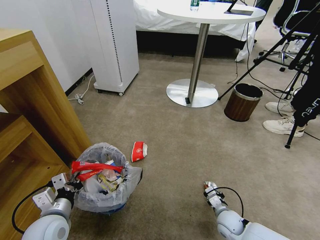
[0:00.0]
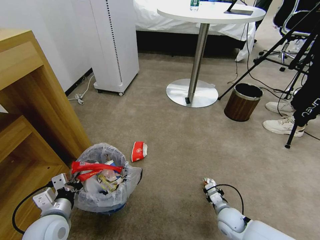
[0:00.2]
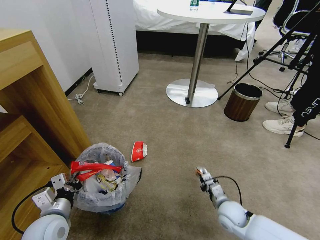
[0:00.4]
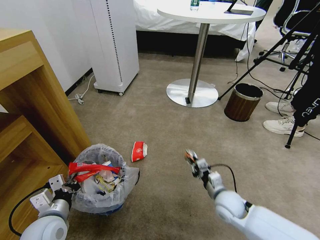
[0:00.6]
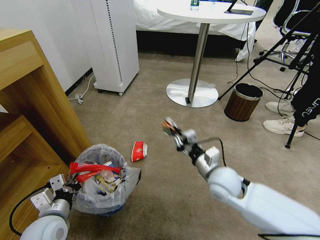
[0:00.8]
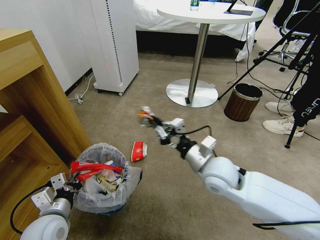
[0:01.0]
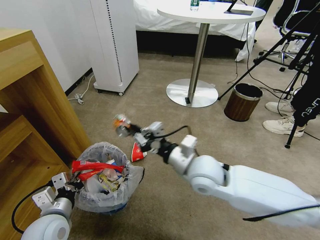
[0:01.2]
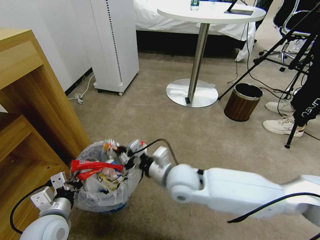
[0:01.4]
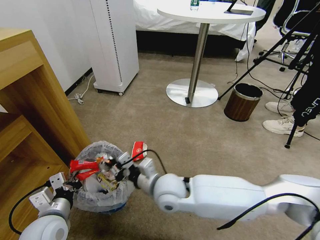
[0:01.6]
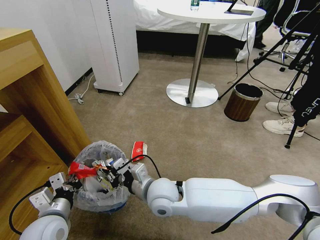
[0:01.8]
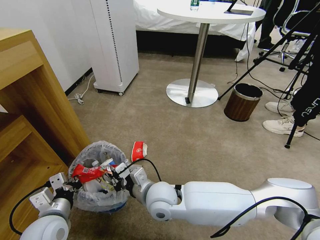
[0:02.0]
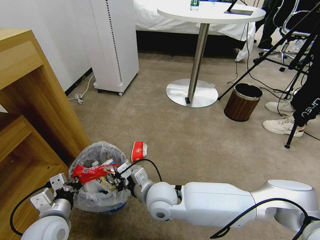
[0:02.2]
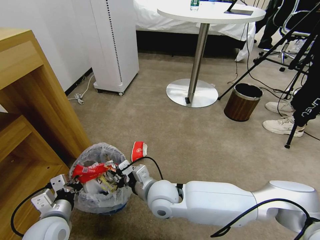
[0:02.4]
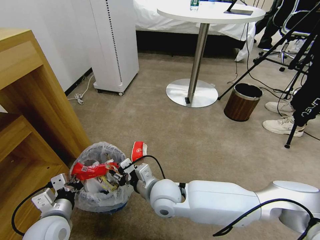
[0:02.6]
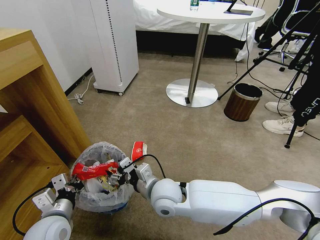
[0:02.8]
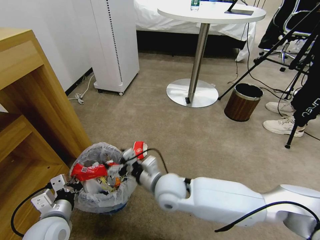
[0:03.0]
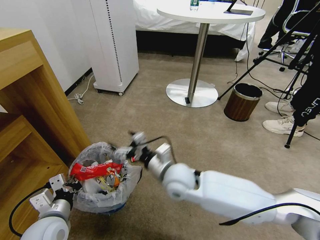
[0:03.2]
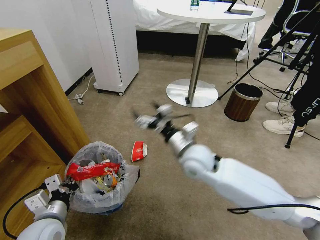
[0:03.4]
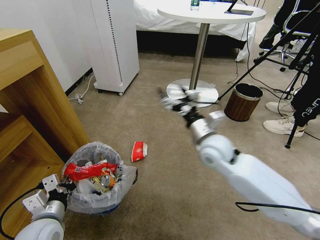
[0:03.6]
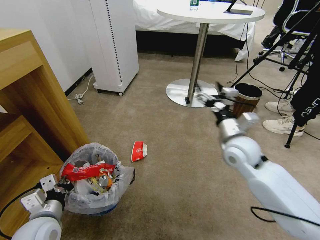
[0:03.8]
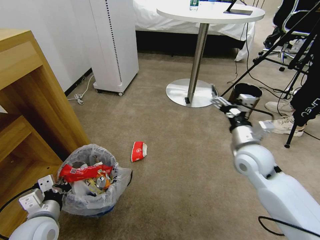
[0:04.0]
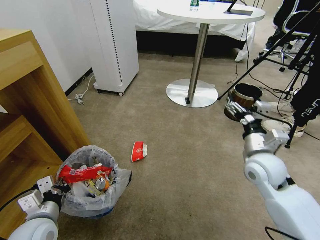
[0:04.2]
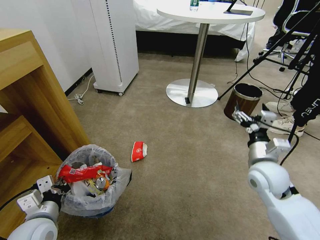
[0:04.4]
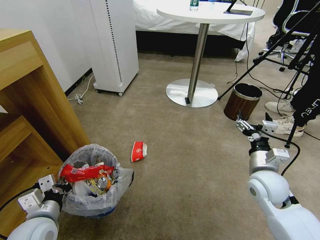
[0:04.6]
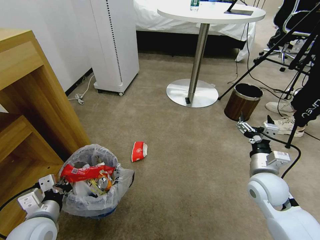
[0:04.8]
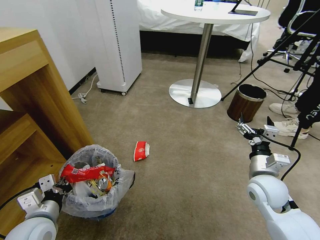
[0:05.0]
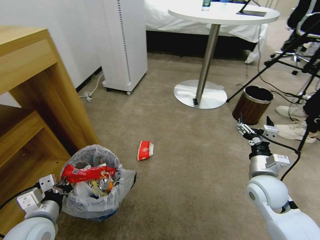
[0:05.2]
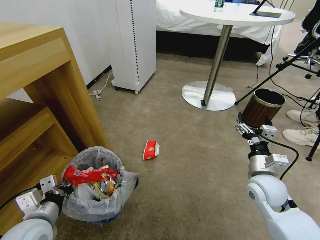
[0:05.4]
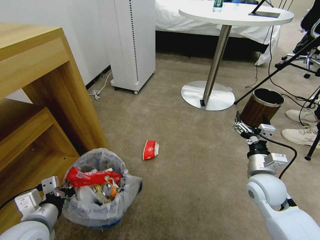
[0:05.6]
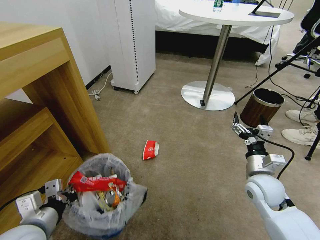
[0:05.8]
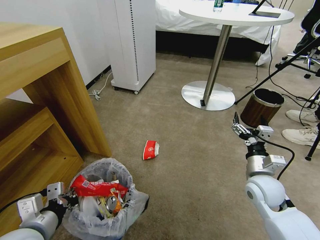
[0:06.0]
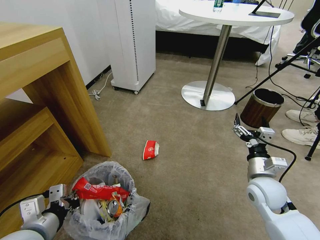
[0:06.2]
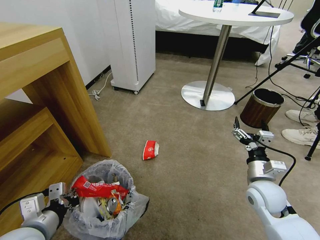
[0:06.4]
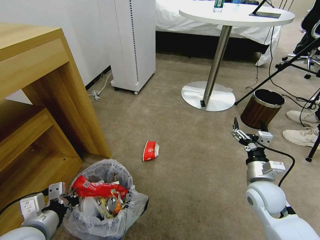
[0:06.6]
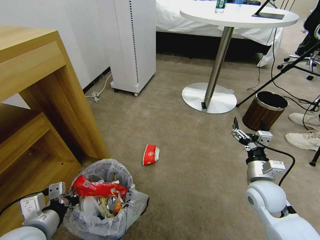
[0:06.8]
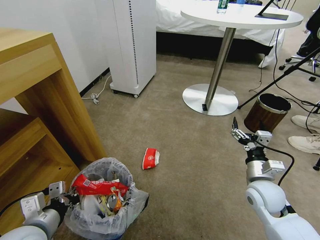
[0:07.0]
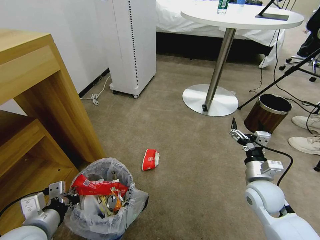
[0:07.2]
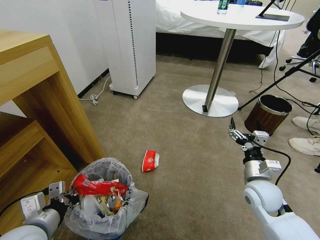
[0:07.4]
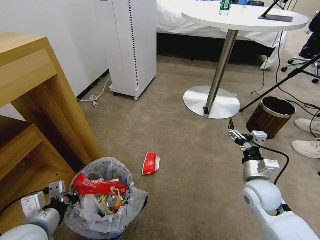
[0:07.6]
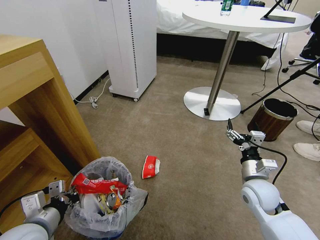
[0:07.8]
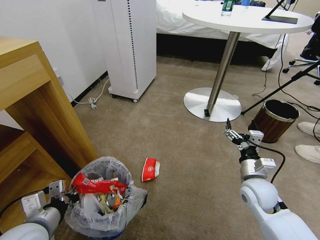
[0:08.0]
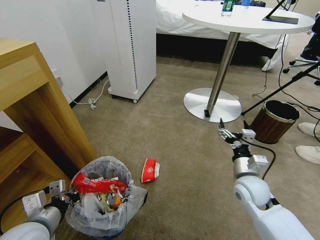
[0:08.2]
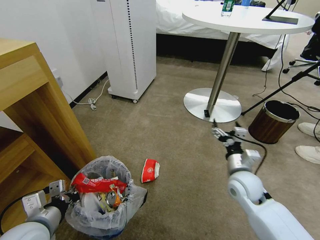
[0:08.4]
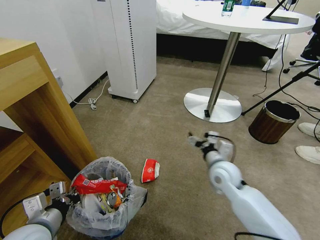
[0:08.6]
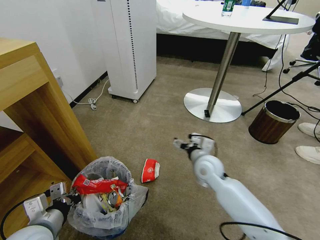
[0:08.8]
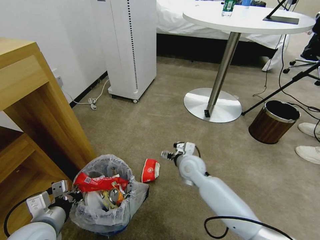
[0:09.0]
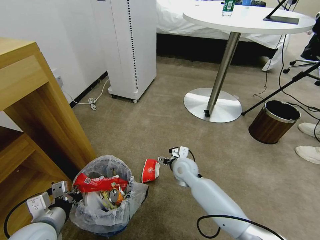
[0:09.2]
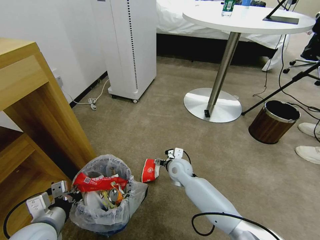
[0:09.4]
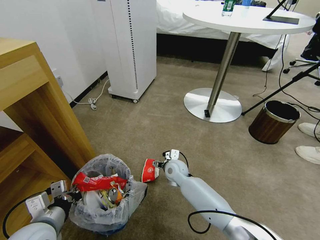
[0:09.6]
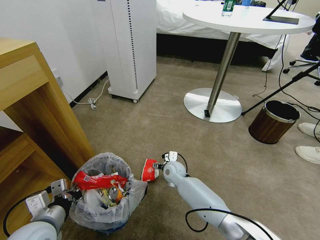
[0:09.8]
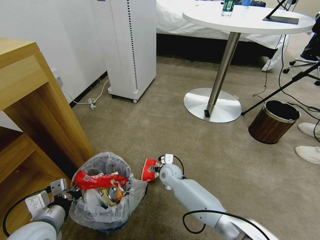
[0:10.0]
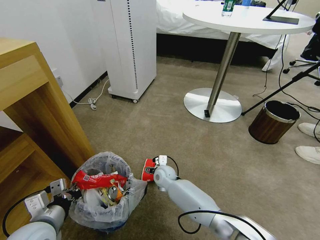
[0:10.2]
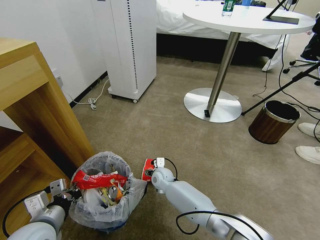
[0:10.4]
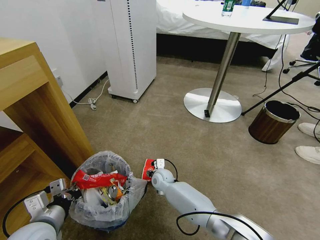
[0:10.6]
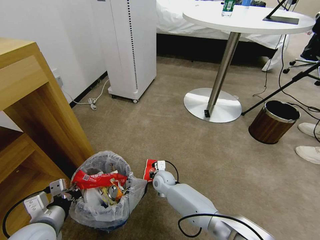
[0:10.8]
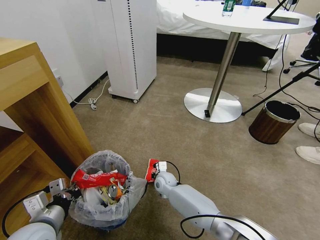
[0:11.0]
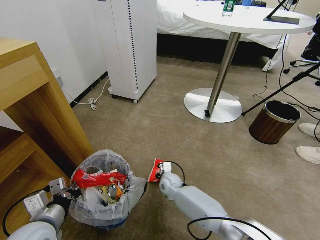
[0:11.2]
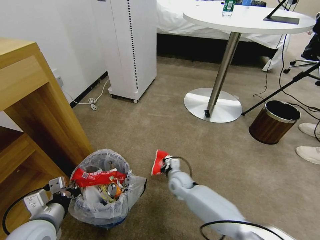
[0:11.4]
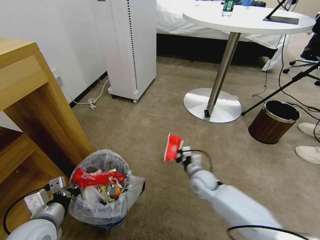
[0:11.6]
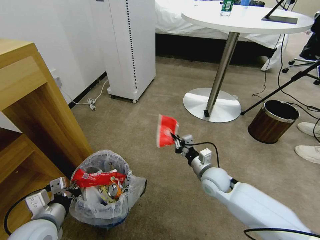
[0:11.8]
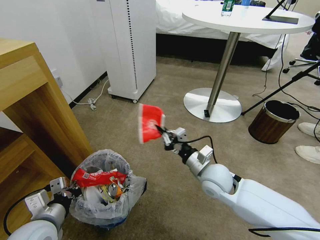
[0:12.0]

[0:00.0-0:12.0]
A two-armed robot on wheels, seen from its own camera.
Task of the whole recording: Pick up the trash bin and place the garbage on the floor into it.
0:00.0 to 0:01.6: The right gripper shifts about 35 cm to the left and upward.
0:01.6 to 0:03.0: The right gripper opens its fingers.
0:03.0 to 0:04.4: The right gripper travels to the right by roughly 30 cm.
0:04.4 to 0:06.0: The left gripper moves upward, some 5 cm. The right gripper shifts by roughly 5 cm.
0:07.6 to 0:09.0: The right gripper is displaced to the left and forward by some 20 cm.
0:09.0 to 0:10.4: The right gripper moves downward and to the left, approximately 20 cm.
0:10.4 to 0:12.0: The right gripper travels upward, to the right and backward by about 25 cm, and closes its fingers.

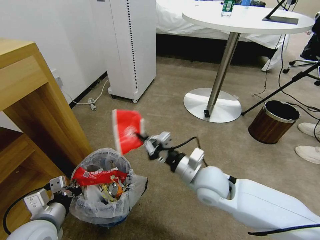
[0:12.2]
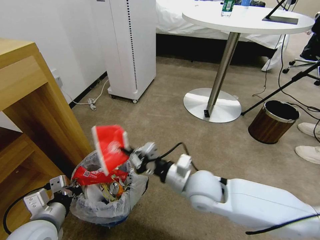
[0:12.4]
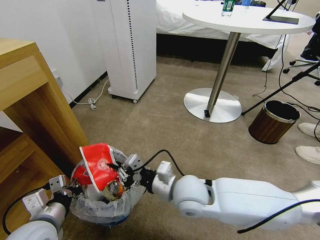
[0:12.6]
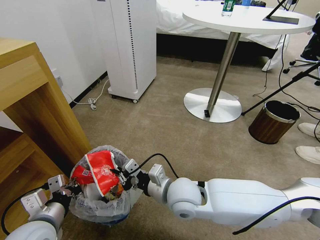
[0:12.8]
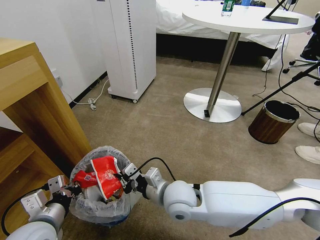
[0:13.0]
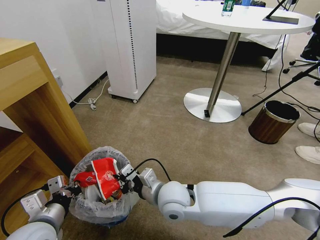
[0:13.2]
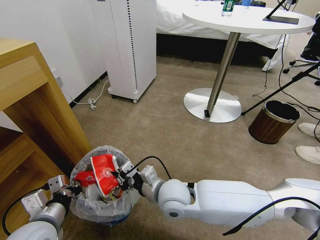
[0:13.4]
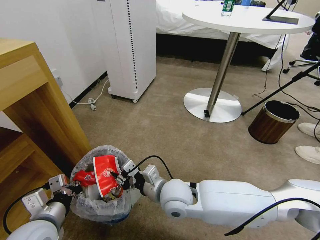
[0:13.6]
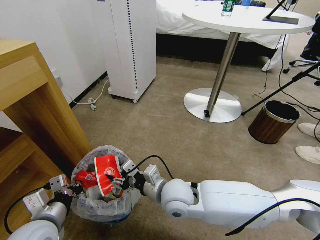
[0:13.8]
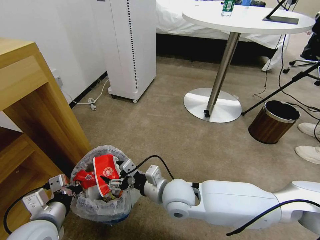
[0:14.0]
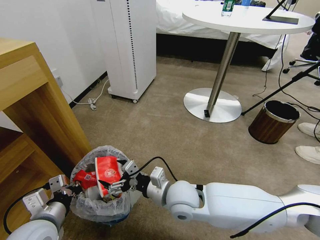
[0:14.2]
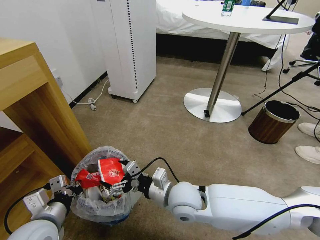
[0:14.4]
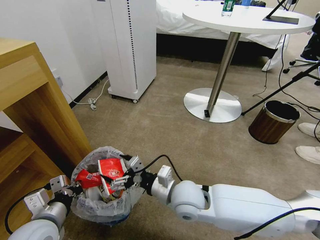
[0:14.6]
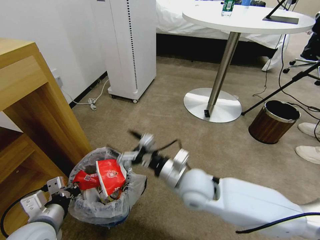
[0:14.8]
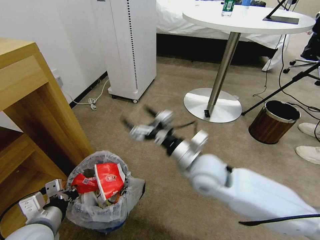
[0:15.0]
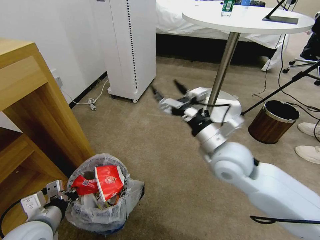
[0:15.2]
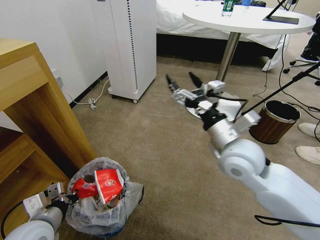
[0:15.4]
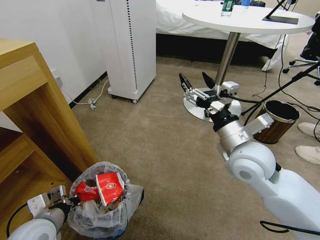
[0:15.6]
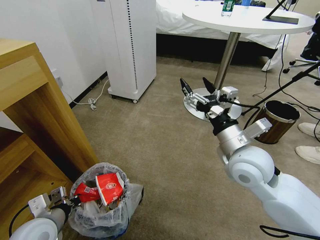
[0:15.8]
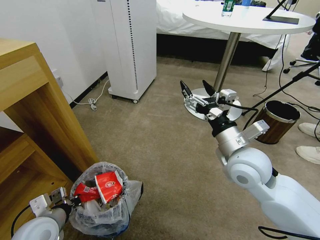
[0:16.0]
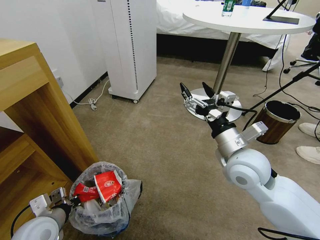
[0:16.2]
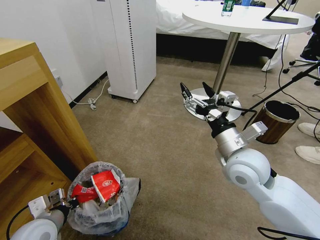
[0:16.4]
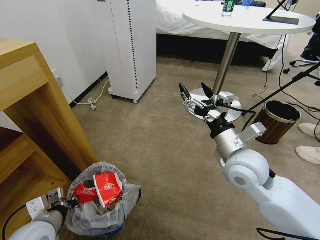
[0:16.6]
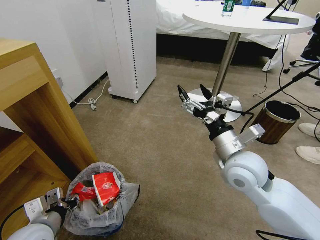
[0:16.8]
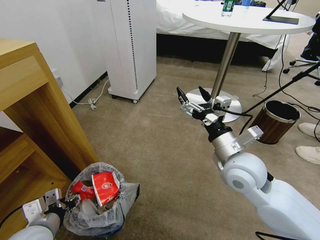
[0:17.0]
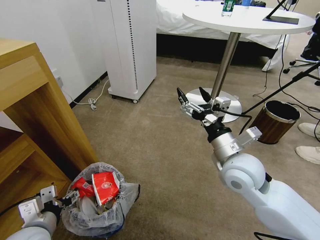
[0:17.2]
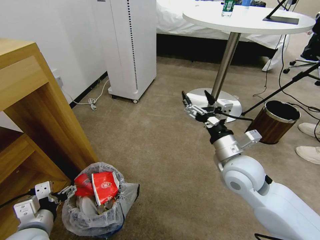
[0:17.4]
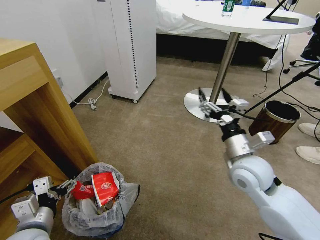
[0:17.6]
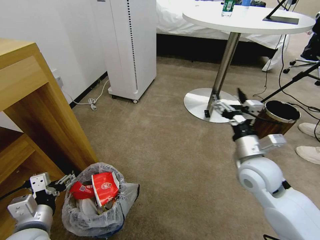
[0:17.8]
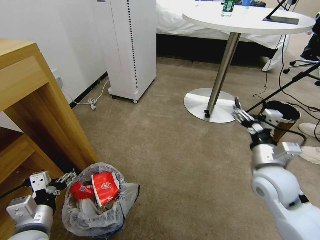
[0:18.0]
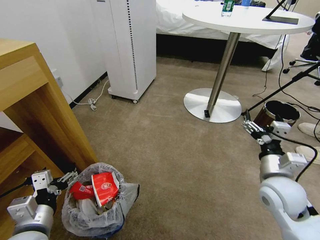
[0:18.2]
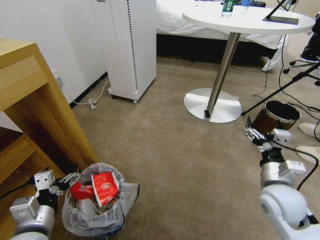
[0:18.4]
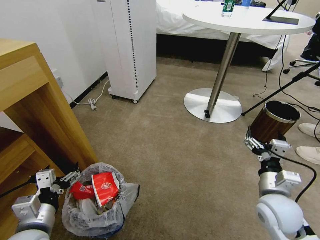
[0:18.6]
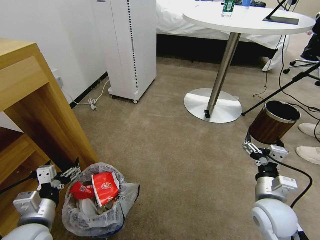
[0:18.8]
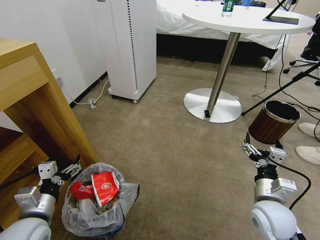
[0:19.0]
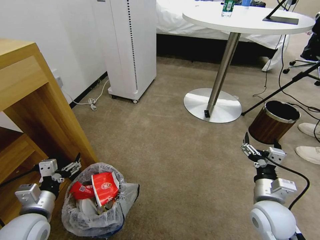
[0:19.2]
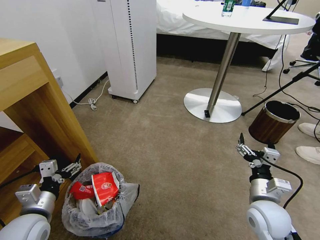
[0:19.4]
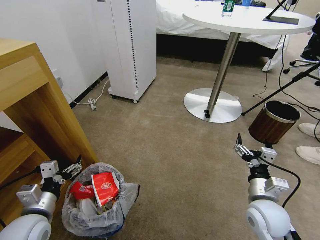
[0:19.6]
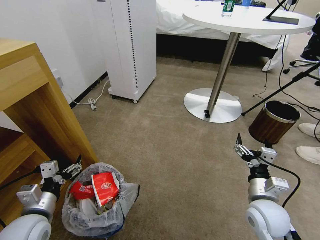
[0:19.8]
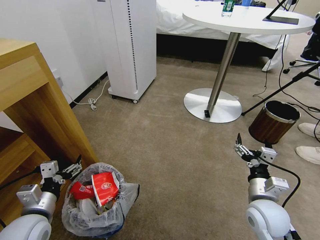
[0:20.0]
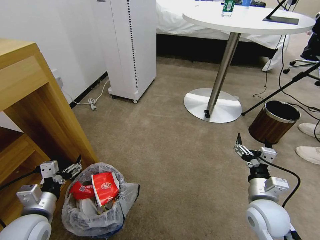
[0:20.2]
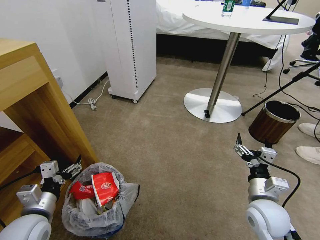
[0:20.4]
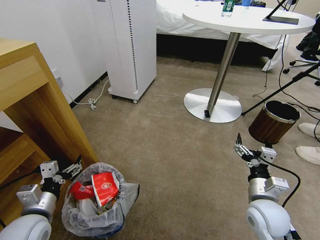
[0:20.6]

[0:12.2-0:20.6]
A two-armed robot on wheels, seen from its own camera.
Task of the whole recording: Pick up the trash bin and place the garbage on the floor into it.
0:12.2 to 0:13.6: The right gripper shifts roughly 10 cm to the left, and opens.
0:13.6 to 0:15.0: The right gripper travels upward and to the right by approximately 10 cm, and opens.
0:15.0 to 0:16.4: The right gripper travels to the right by some 10 cm. Meanwhile the left gripper changes place by approximately 5 cm.
0:16.4 to 0:17.8: The right gripper changes place by approximately 5 cm; the left gripper changes place by approximately 5 cm, and opens up.
0:17.8 to 0:19.2: The right gripper goes roughly 15 cm downward and backward. The left gripper shifts by about 5 cm.
0:19.2 to 0:20.6: Neither gripper changes place.
